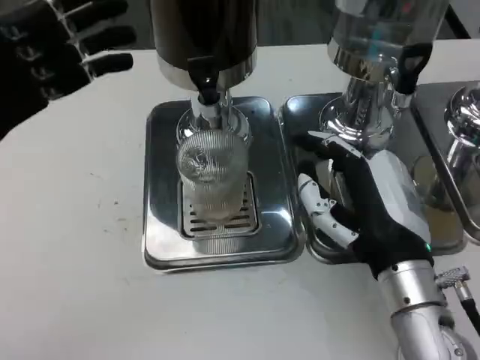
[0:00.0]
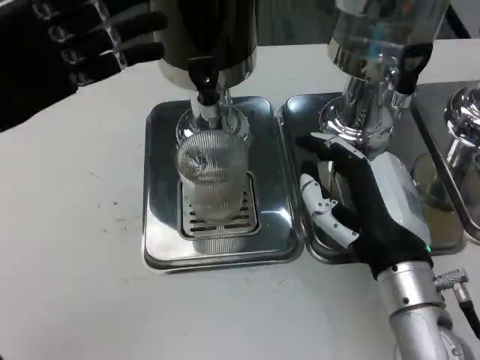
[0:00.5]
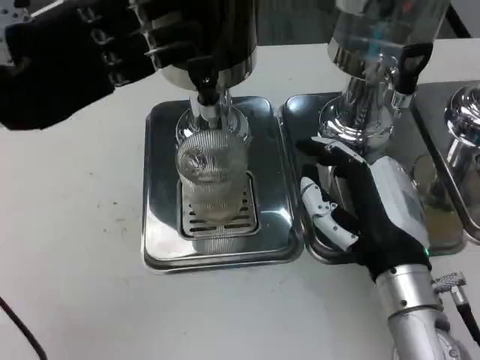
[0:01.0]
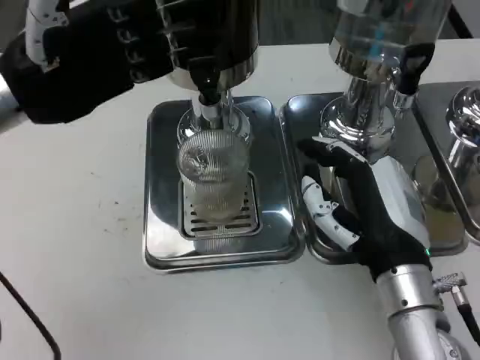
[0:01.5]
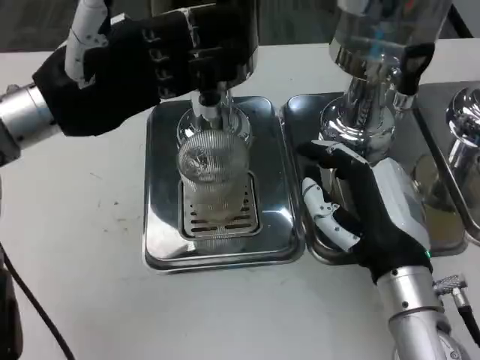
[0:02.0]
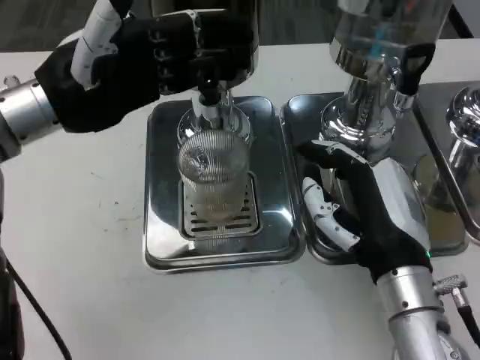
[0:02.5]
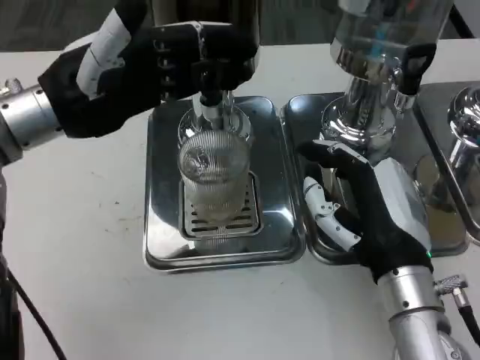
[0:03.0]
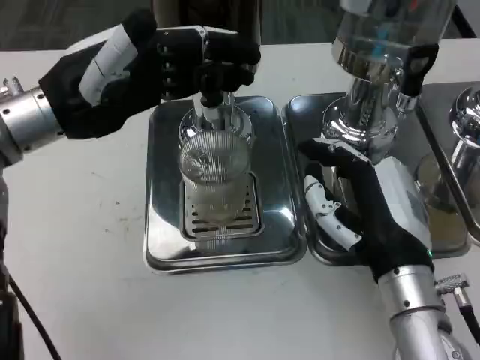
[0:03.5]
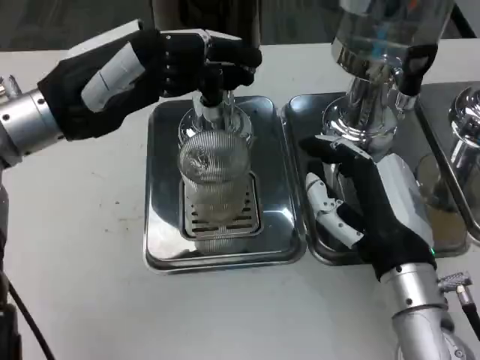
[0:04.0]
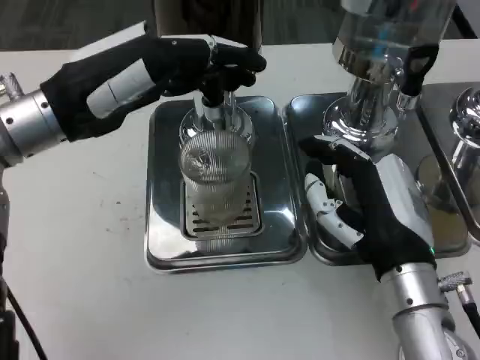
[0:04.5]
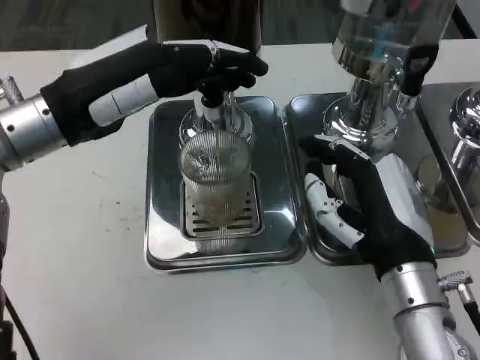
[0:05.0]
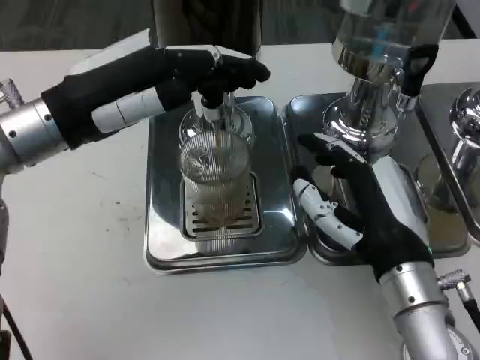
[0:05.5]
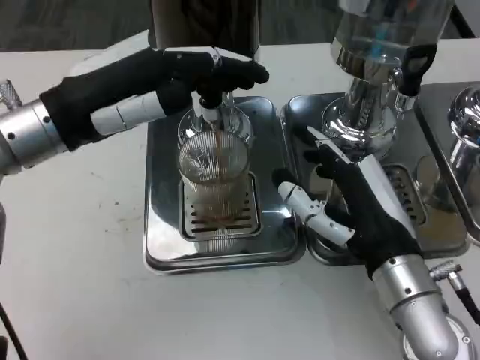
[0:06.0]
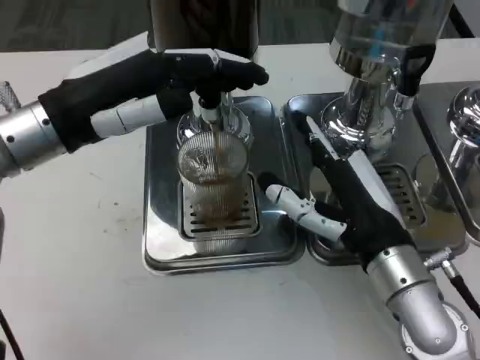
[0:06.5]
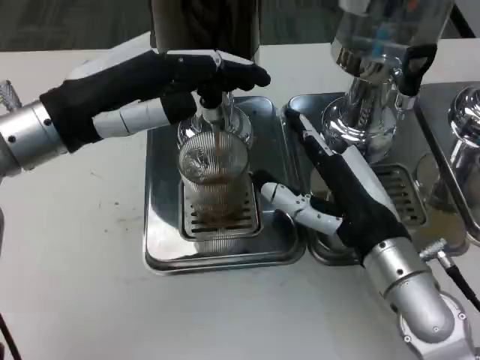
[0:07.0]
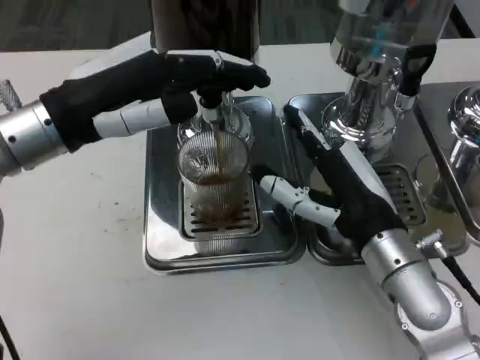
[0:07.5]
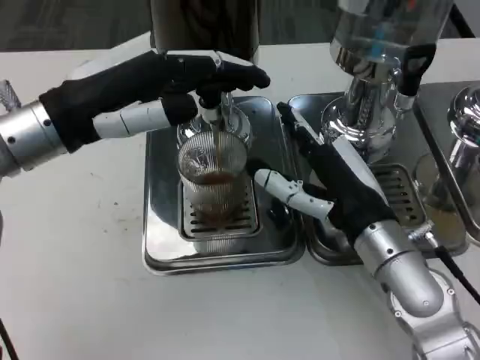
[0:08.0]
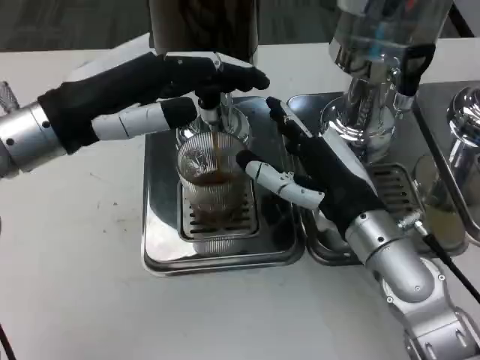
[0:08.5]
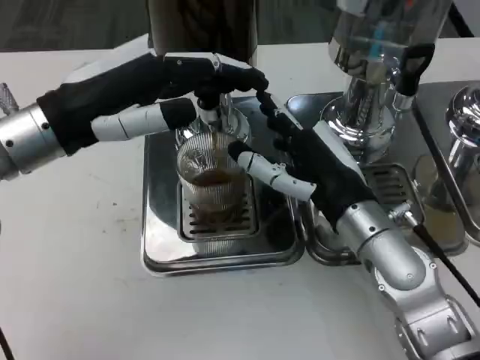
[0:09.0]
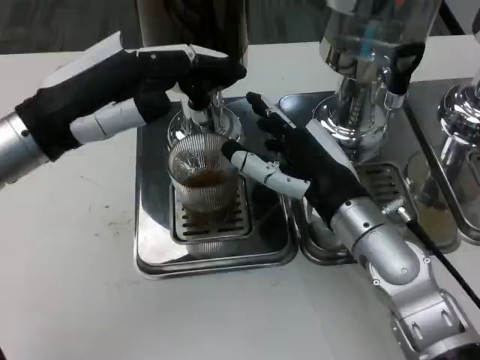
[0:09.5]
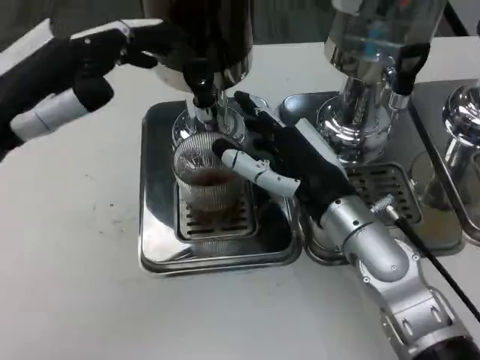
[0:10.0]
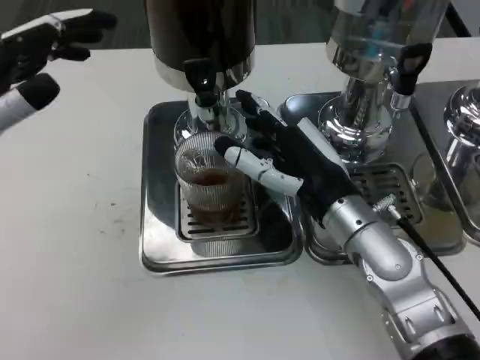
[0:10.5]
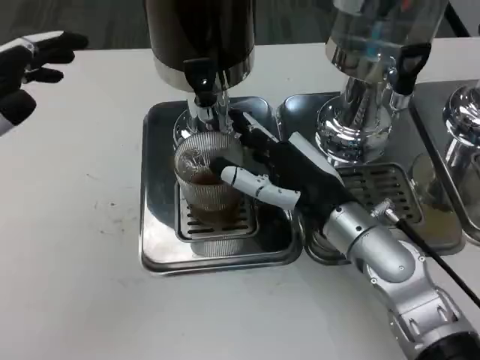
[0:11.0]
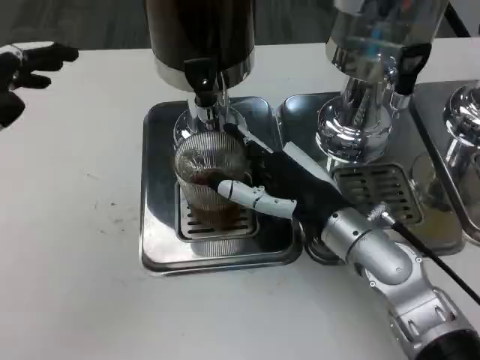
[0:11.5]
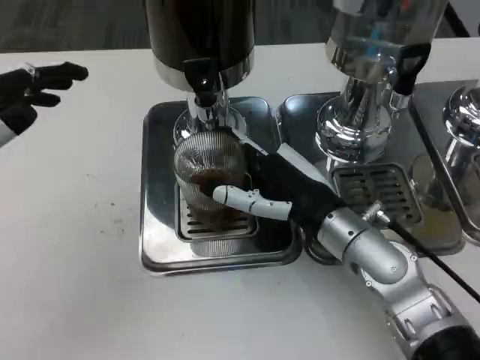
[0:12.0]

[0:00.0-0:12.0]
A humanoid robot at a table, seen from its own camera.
Task of the whole recording: Grasp the cup under the faucet to collect the drink, then remove the cup.
0:00.0 to 0:02.0: The left hand is displaced to the right and forward by about 10 cm.
0:06.0 to 0:08.0: There are only small adjustments of the hands.
0:08.0 to 0:10.0: The left hand moves about 5 cm.
0:10.0 to 0:12.0: The left hand shifts by some 5 cm.

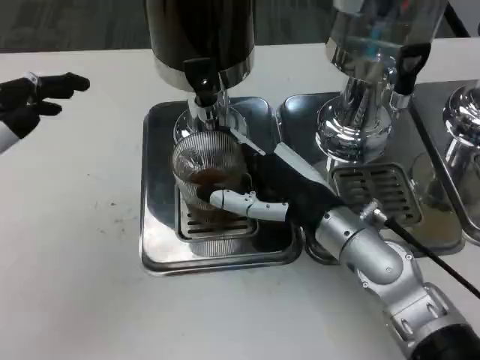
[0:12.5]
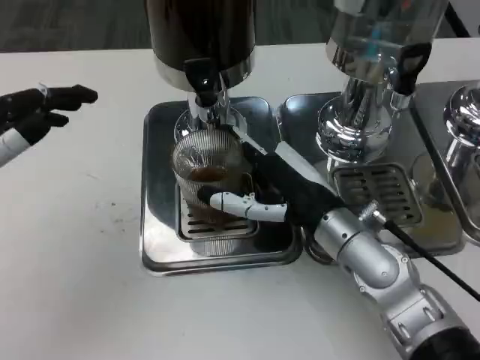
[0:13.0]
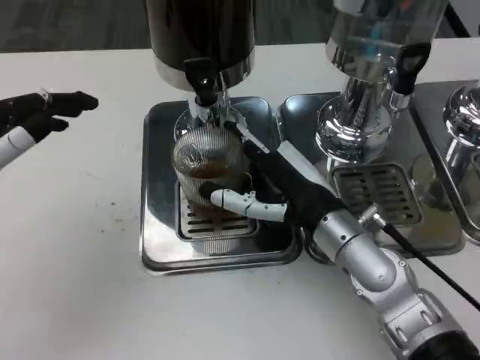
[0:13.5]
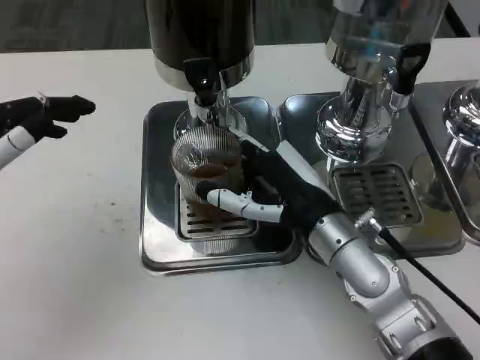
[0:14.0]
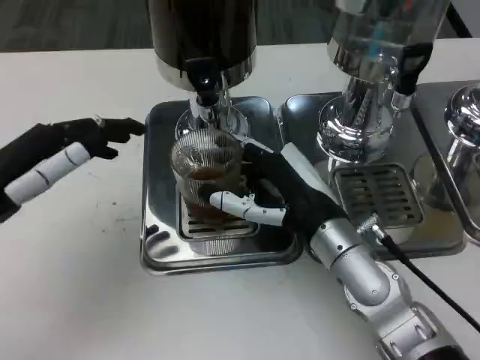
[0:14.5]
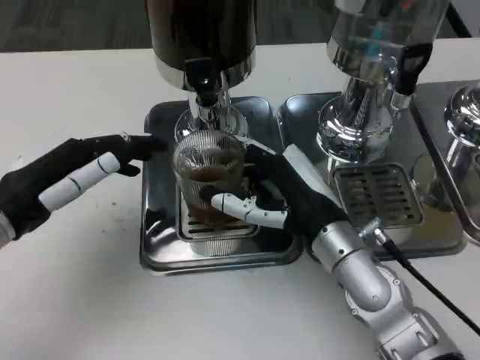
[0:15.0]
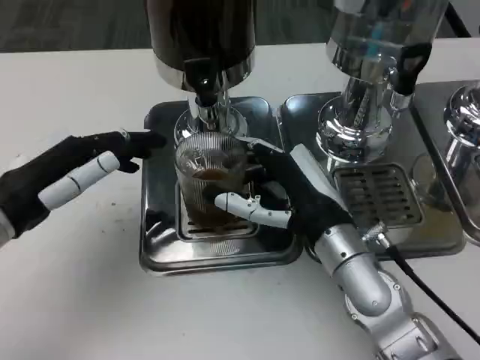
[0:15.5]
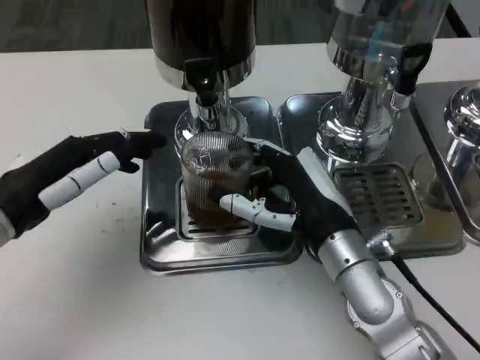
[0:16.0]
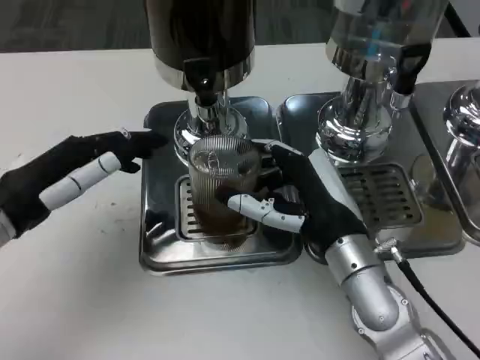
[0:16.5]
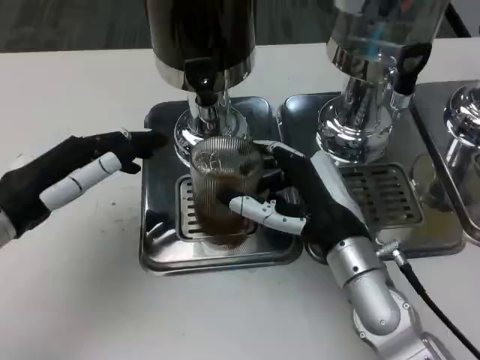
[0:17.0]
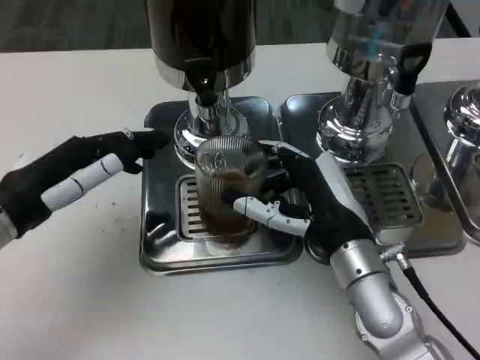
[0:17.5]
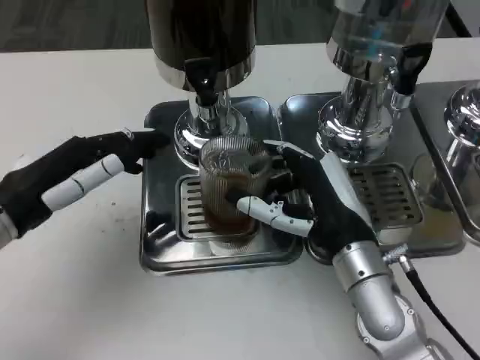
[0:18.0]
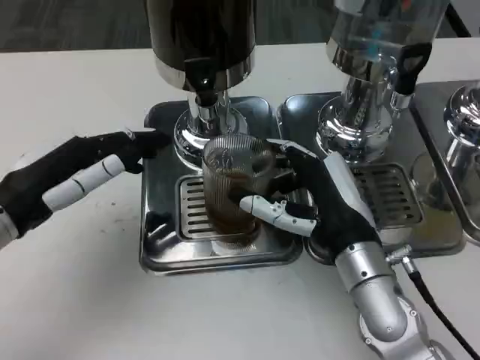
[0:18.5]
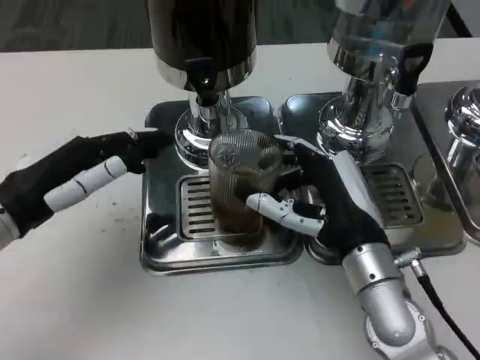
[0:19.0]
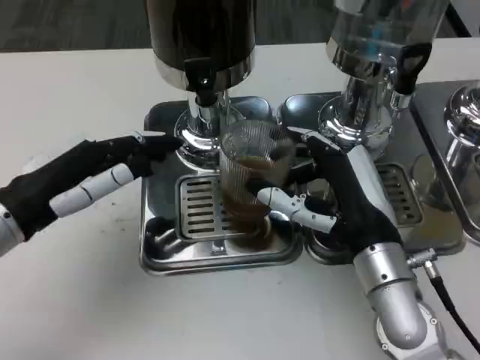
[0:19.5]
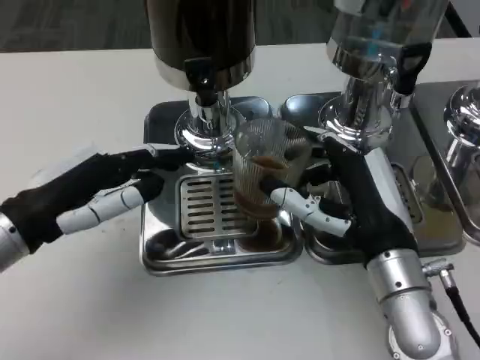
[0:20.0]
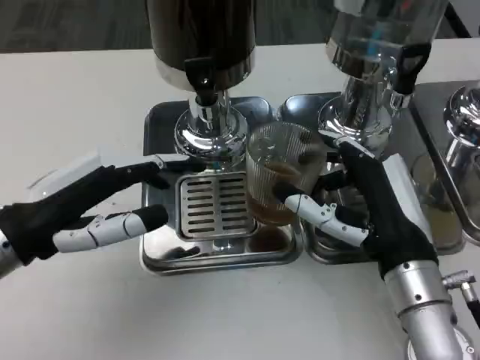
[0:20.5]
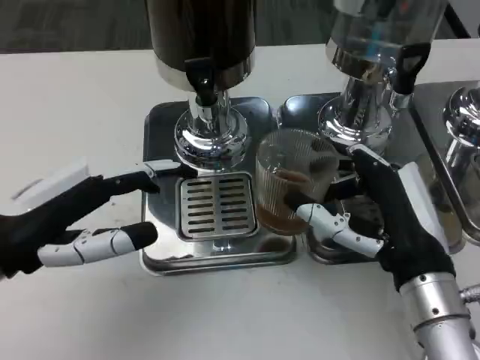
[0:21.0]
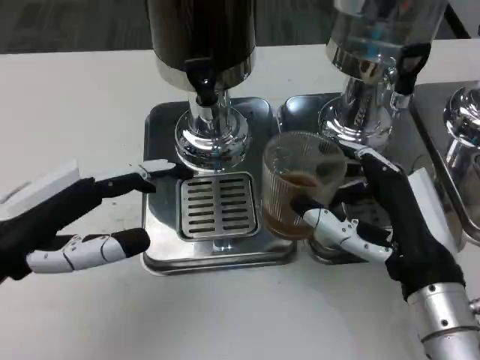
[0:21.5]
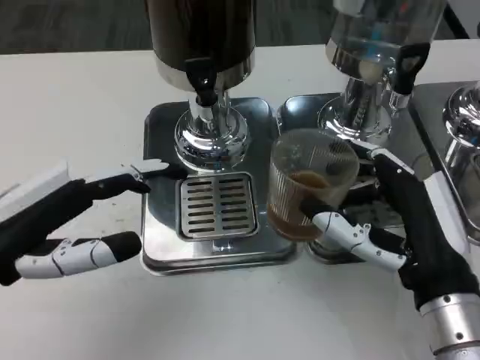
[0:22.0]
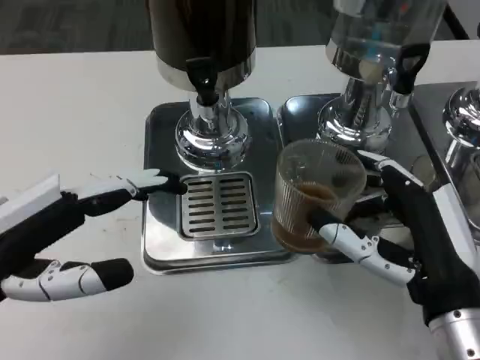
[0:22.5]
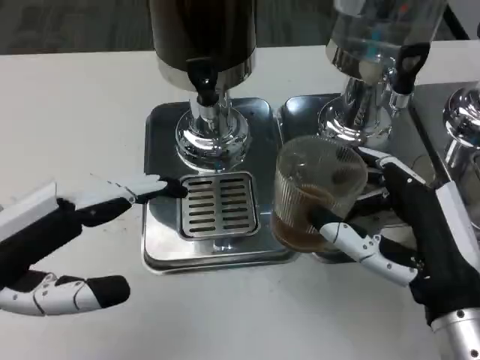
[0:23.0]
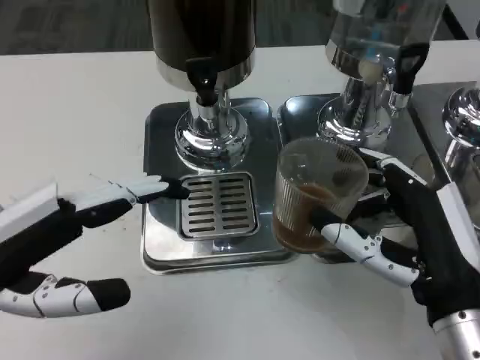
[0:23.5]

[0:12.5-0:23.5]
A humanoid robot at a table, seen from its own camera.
Task of the whole recording: Grasp the cup under the faucet to collect the drink, then remove the cup.
0:14.5 to 0:18.0: The hands stay close to where they were, moving slightly.
0:20.0 to 0:21.5: The right hand shifts by some 5 cm.

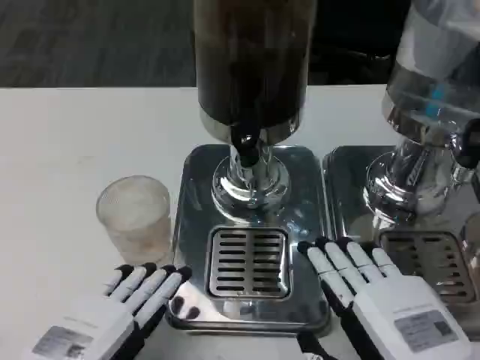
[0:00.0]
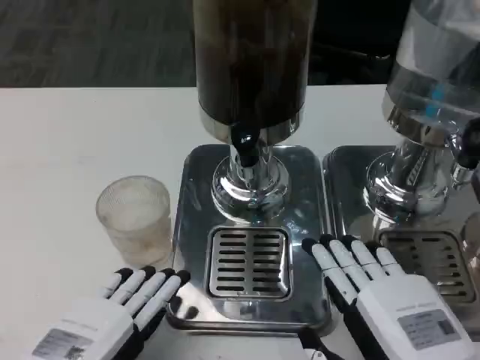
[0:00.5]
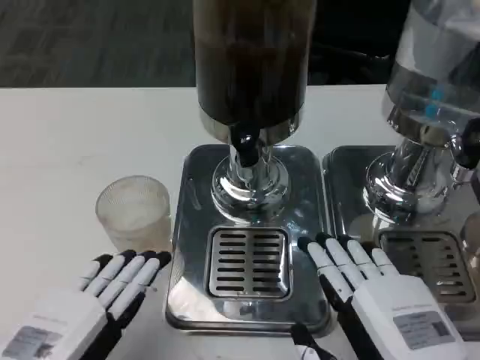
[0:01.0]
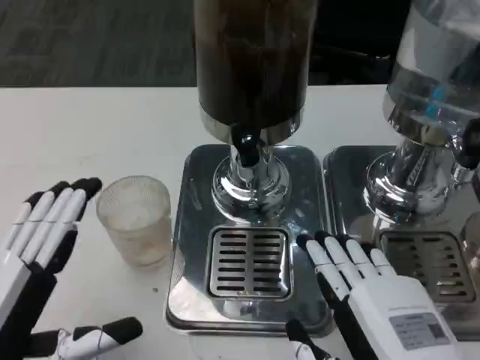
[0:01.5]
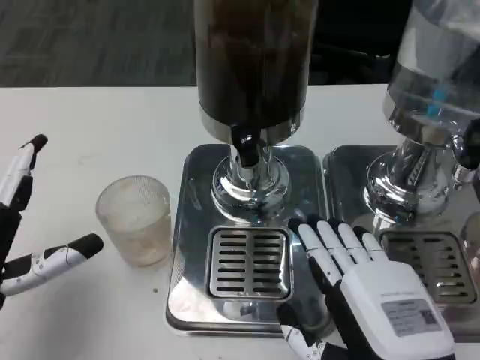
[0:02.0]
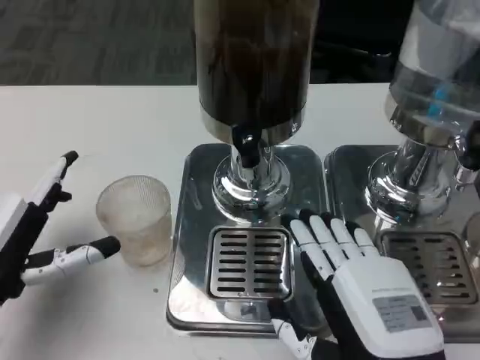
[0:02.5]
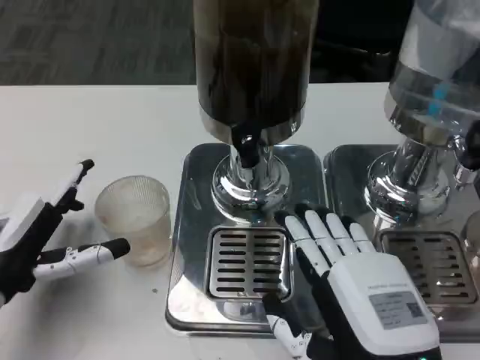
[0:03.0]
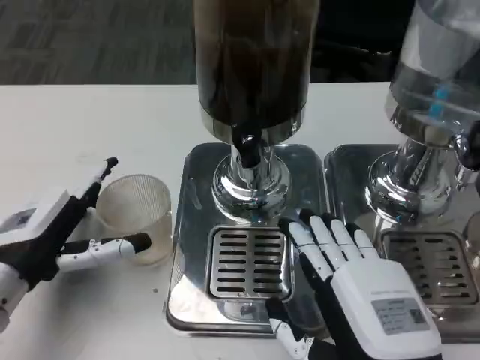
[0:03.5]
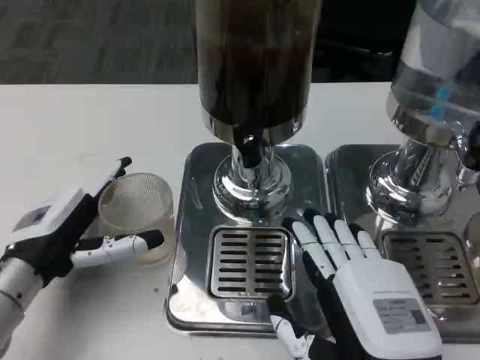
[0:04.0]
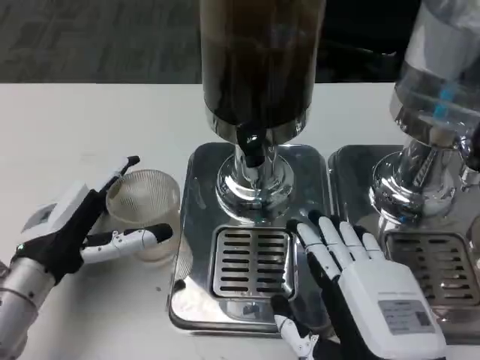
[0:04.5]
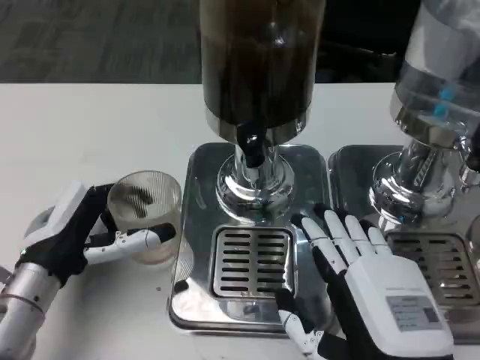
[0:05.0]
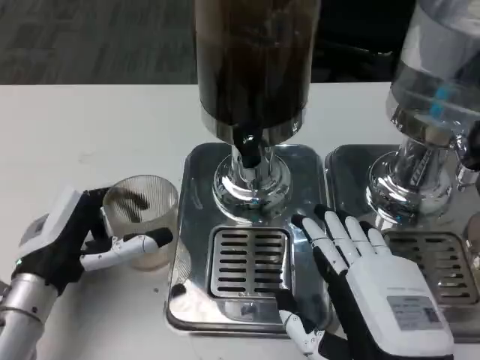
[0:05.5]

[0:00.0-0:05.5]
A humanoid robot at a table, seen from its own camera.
Task of the whole recording: Grasp the cup under the faucet to collect the drink, then remove the cup.
0:00.0 to 0:02.0: The left hand goes approximately 10 cm forward and to the left.
0:02.0 to 0:03.5: The left hand moves forward, some 5 cm.
0:03.5 to 0:05.5: The hands stay close to where they were, moving slightly.
